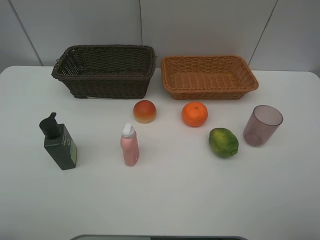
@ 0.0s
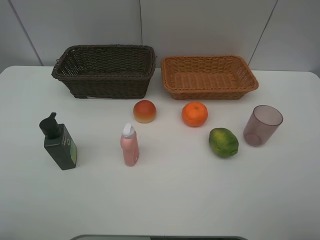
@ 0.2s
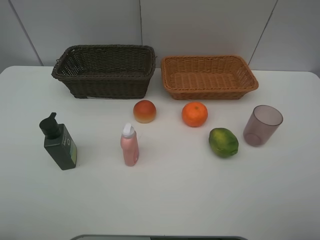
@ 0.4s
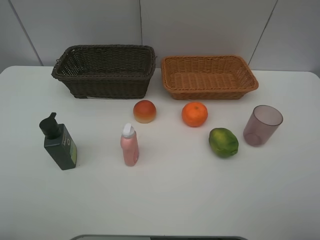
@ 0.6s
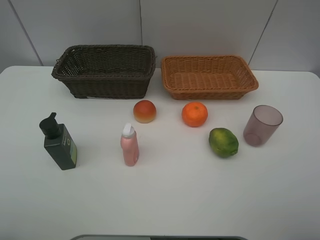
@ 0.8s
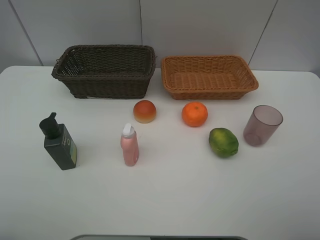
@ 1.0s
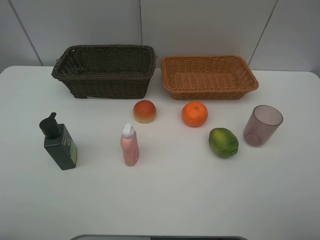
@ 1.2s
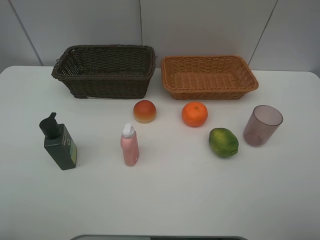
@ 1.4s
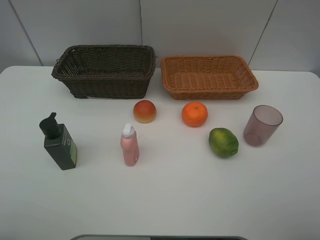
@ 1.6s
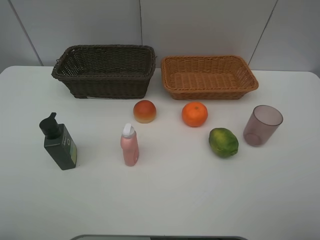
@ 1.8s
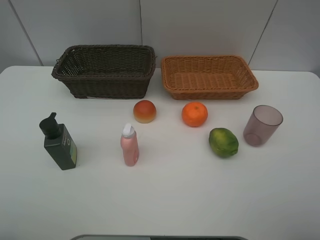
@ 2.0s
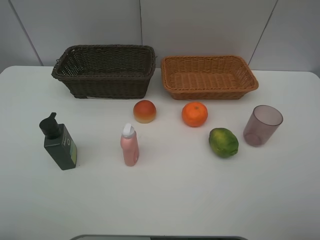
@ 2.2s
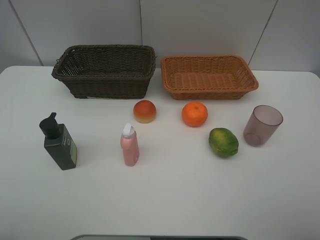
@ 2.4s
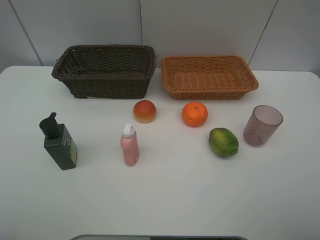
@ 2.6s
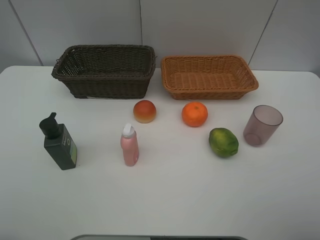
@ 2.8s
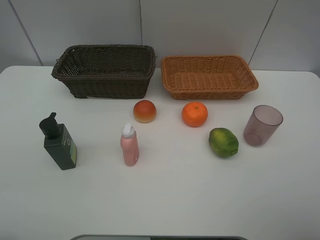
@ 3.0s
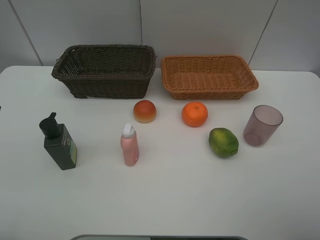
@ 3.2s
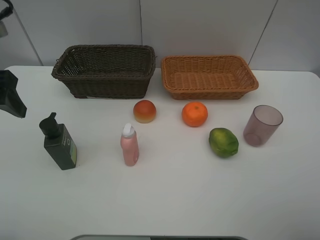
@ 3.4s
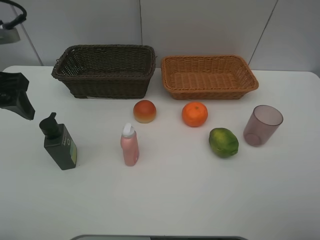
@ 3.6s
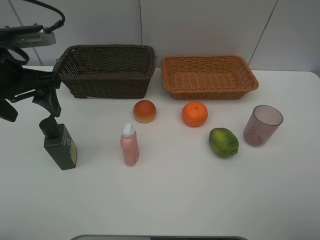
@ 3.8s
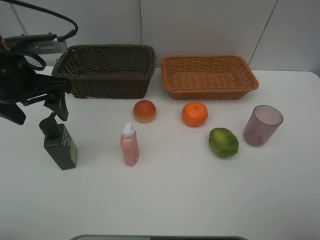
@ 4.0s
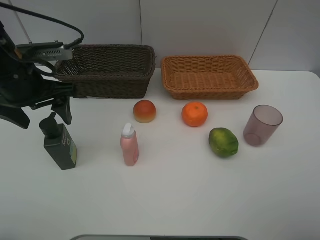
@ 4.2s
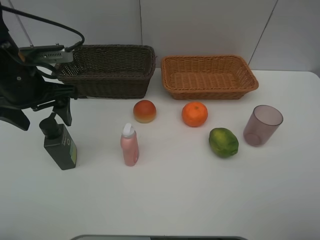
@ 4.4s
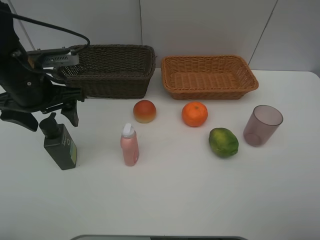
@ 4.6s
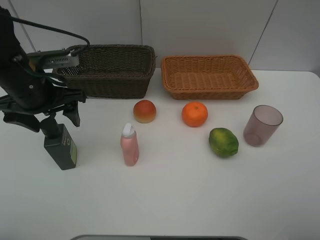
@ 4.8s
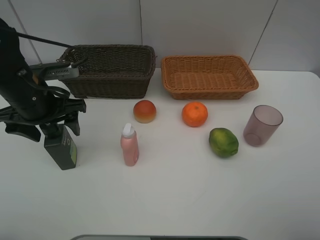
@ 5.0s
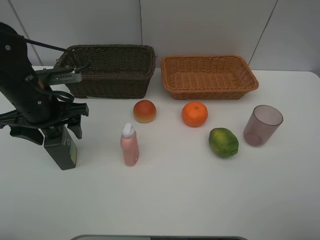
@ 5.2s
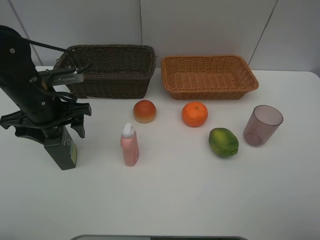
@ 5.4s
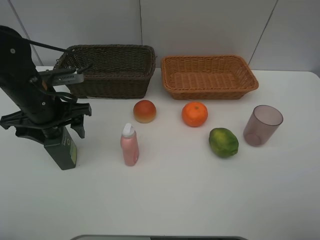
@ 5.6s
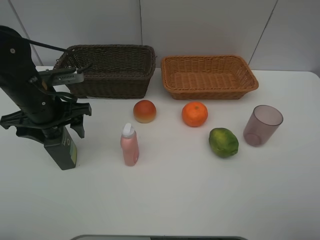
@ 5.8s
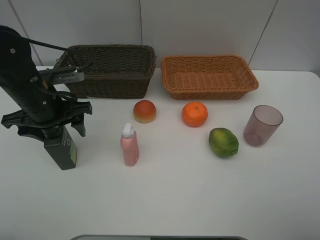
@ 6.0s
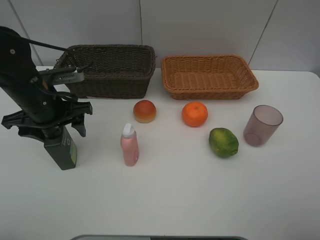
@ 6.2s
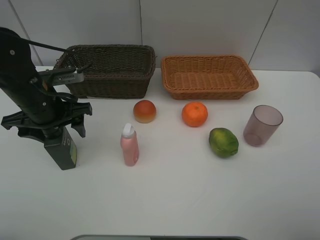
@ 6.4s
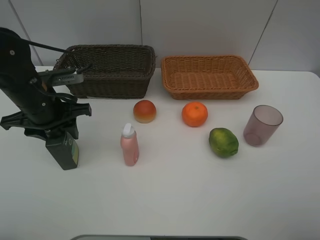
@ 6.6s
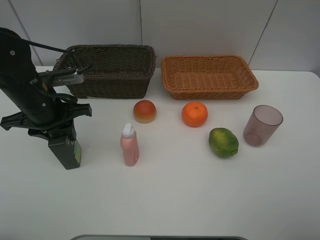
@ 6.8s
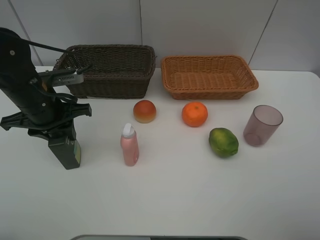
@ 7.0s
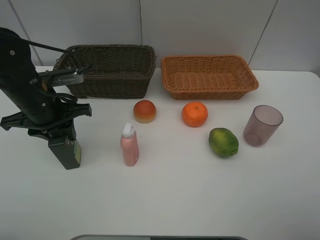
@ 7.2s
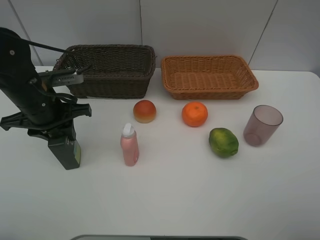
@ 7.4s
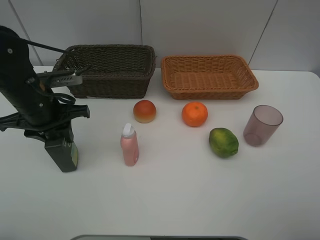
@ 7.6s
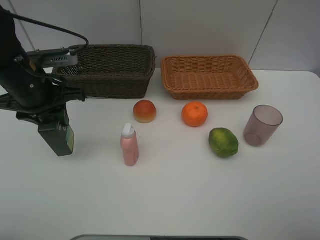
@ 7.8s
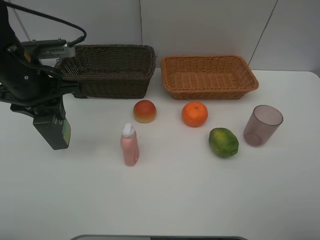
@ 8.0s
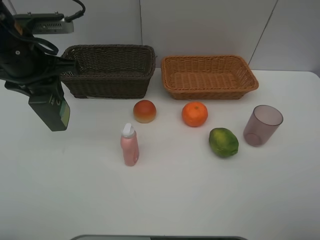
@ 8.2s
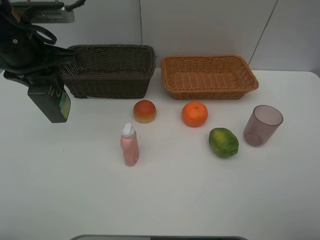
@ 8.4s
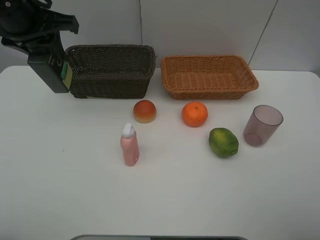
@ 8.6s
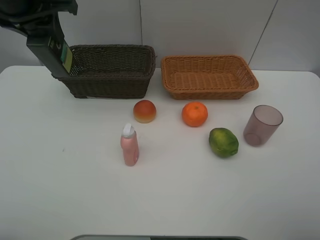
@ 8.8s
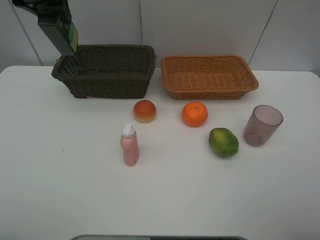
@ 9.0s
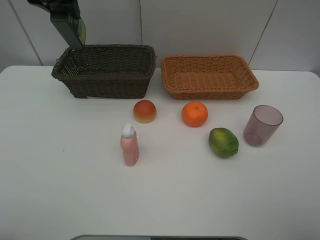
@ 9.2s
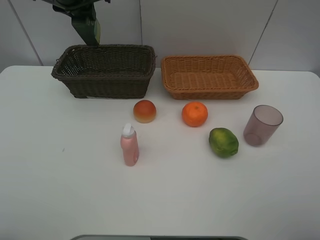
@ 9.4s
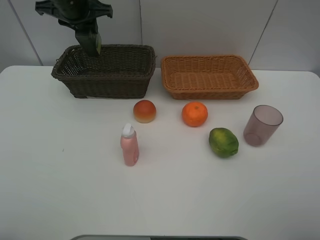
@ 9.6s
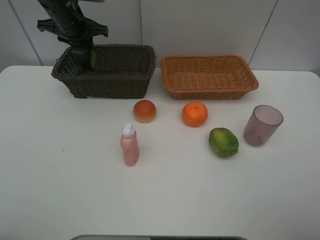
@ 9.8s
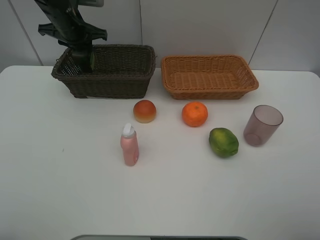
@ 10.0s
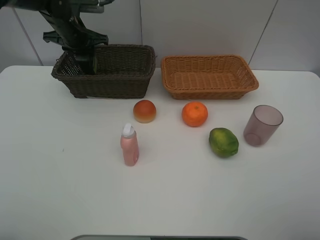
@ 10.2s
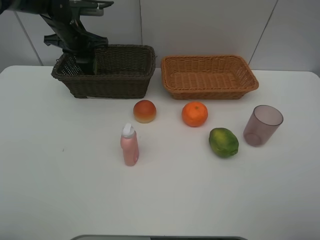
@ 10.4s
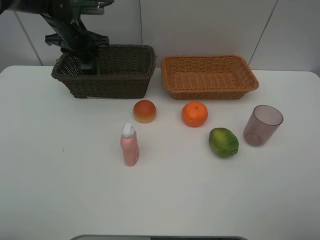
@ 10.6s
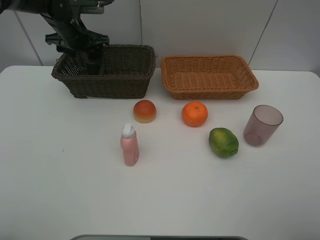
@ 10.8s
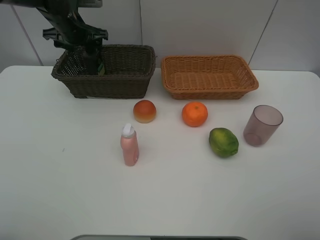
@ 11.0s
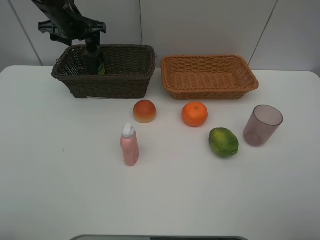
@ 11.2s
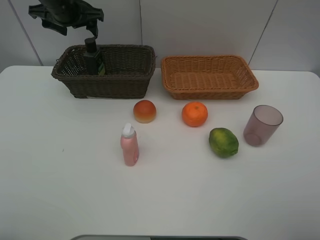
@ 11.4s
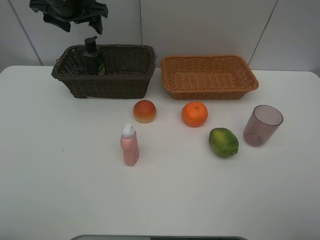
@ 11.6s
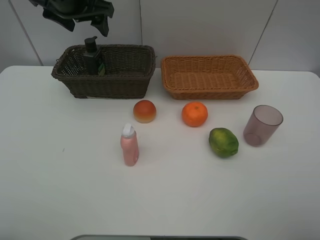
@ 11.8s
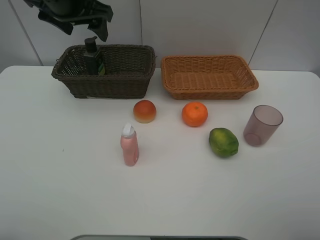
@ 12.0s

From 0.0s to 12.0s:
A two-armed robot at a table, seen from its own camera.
Task of the whole recording: place multiple objects separately in different baskets.
From 0.0s to 1.6s: Both grippers stay put.
From 3.0s to 4.4s: The left gripper is displaced forward, downward and to the right by some 15 cm.
From 4.4s to 6.0s: The left gripper is displaced downward by approximately 5 cm.
From 6.0s to 7.6s: The left gripper closes up.
From 7.6s to 9.0s: The left gripper goes approximately 20 cm upward and forward.
From 9.0s to 10.4s: The left gripper travels downward and forward by about 20 cm.
From 10.4s to 12.0s: The left gripper is displaced upward, backward and to the right by approximately 20 cm, and opens.

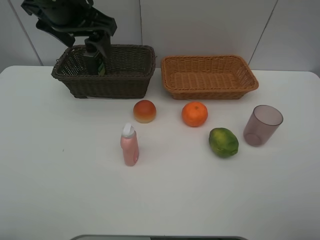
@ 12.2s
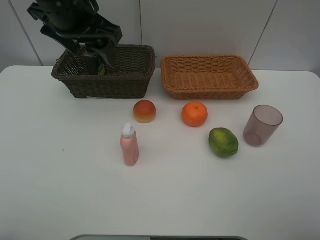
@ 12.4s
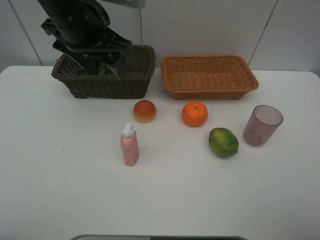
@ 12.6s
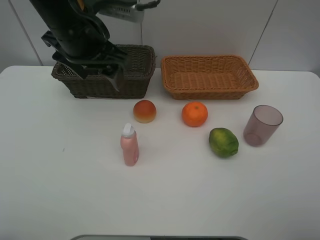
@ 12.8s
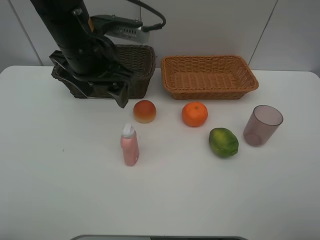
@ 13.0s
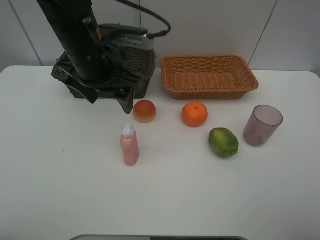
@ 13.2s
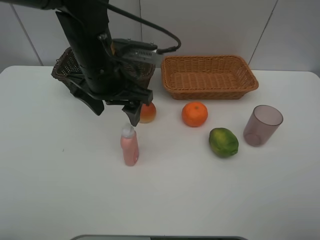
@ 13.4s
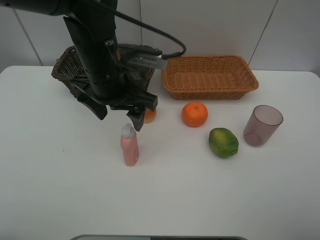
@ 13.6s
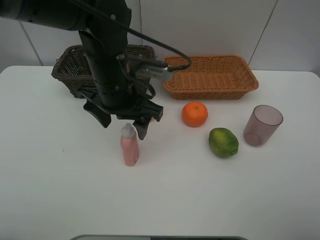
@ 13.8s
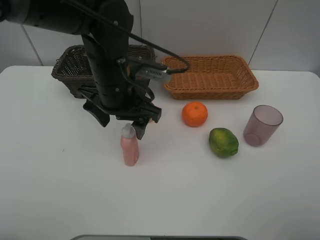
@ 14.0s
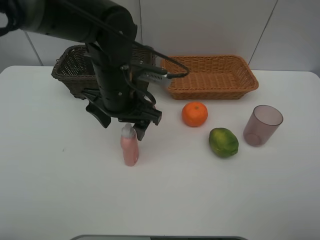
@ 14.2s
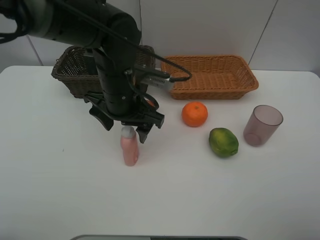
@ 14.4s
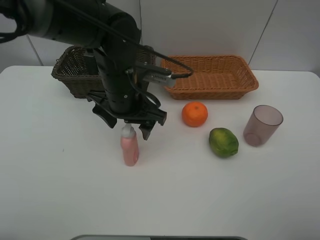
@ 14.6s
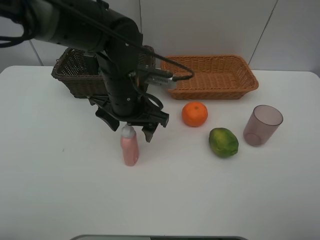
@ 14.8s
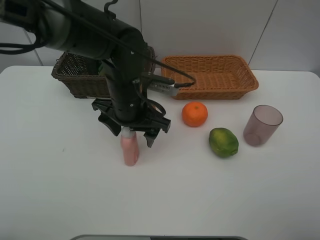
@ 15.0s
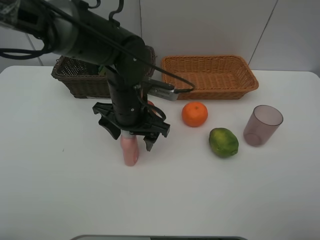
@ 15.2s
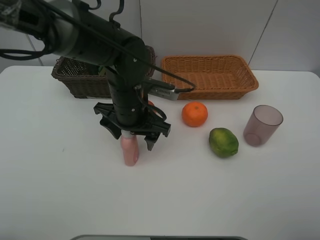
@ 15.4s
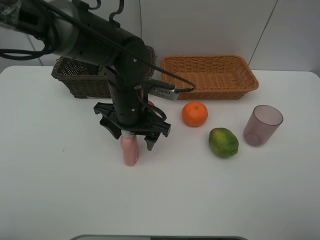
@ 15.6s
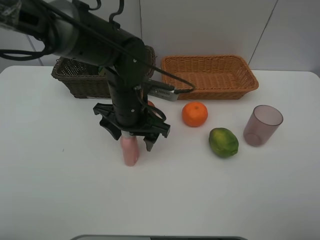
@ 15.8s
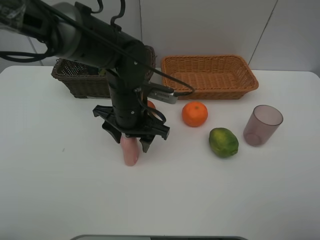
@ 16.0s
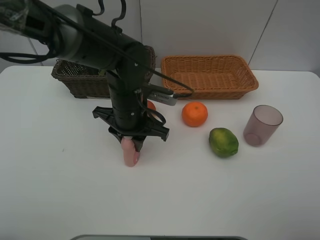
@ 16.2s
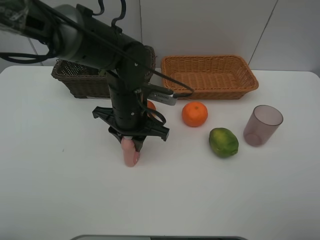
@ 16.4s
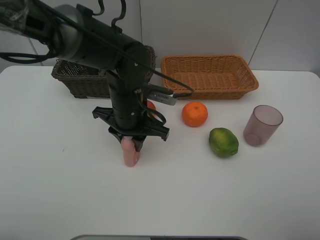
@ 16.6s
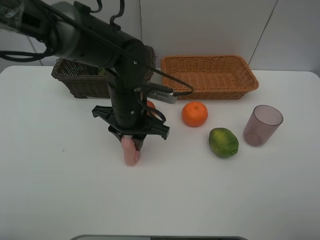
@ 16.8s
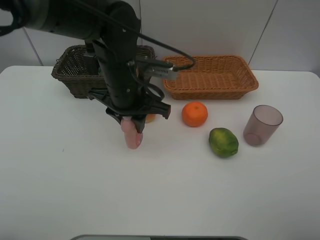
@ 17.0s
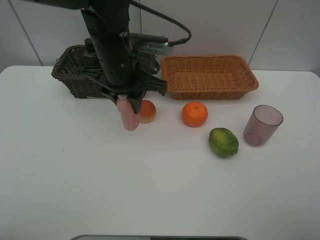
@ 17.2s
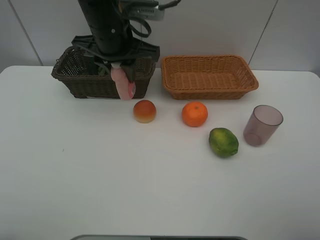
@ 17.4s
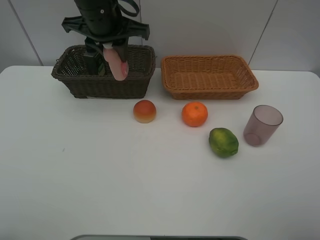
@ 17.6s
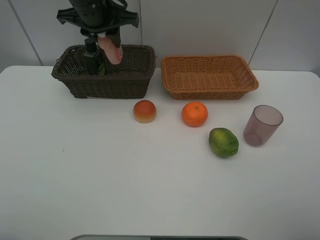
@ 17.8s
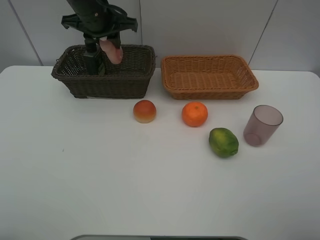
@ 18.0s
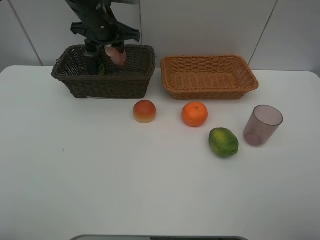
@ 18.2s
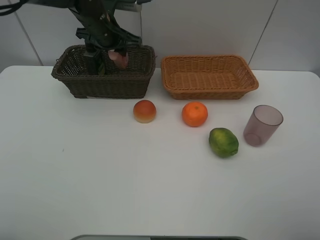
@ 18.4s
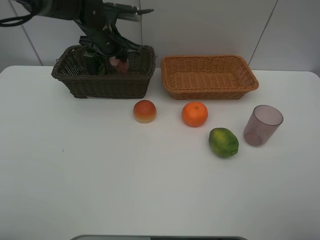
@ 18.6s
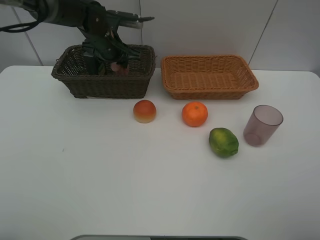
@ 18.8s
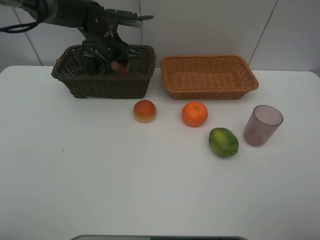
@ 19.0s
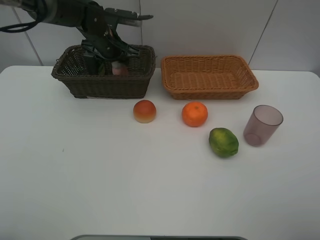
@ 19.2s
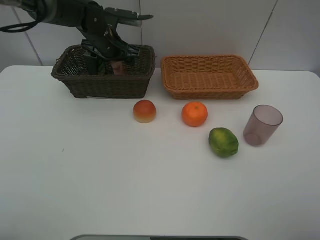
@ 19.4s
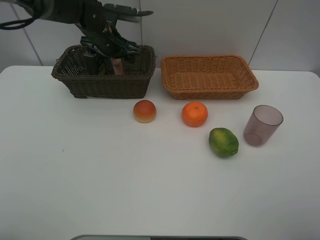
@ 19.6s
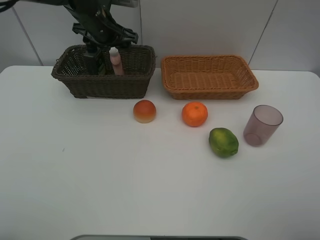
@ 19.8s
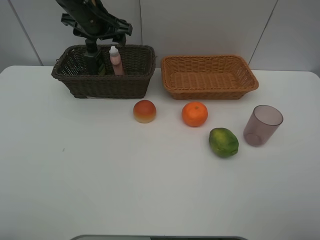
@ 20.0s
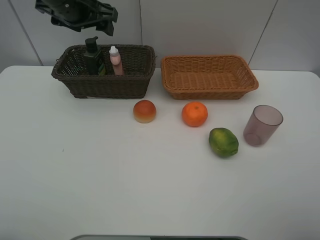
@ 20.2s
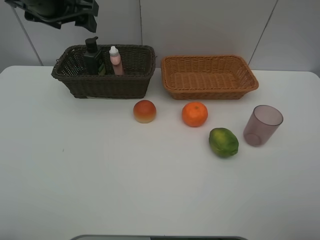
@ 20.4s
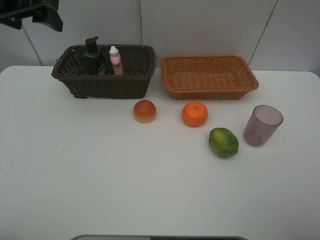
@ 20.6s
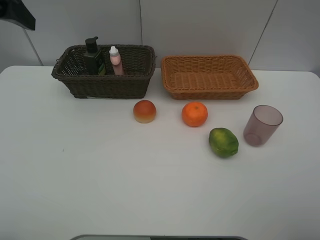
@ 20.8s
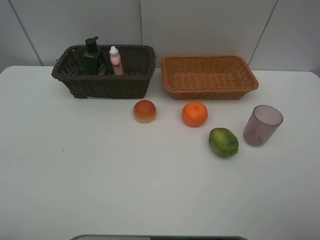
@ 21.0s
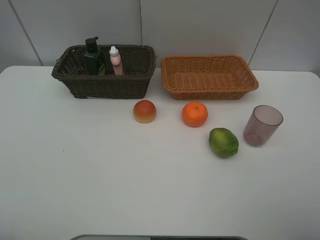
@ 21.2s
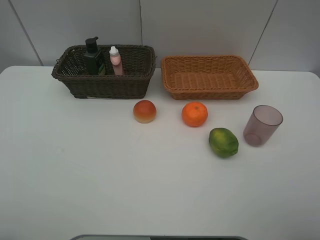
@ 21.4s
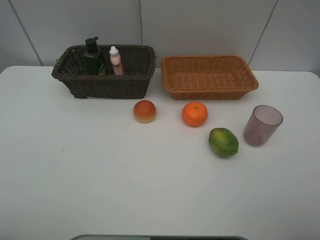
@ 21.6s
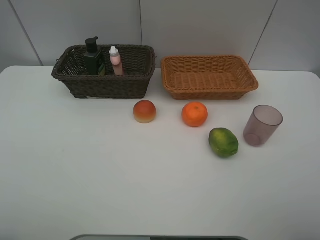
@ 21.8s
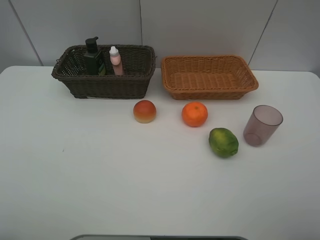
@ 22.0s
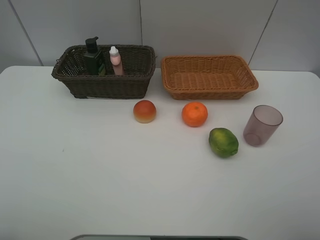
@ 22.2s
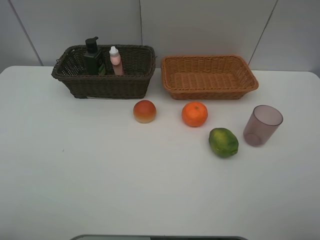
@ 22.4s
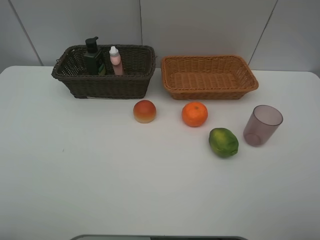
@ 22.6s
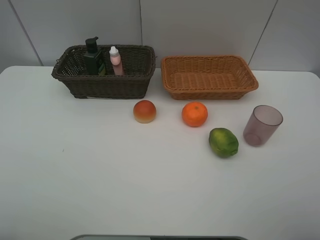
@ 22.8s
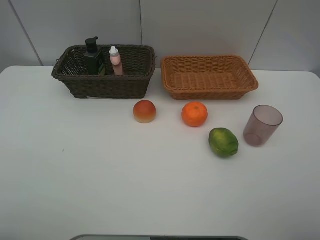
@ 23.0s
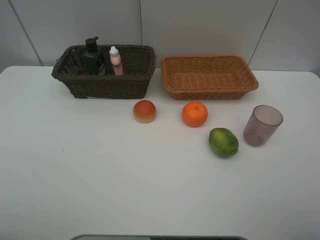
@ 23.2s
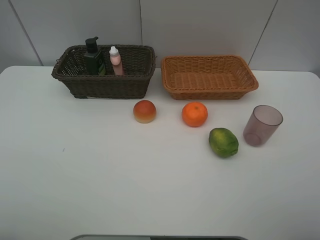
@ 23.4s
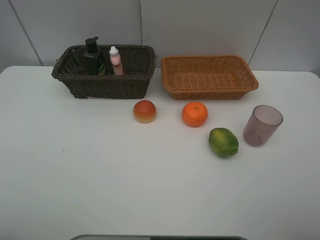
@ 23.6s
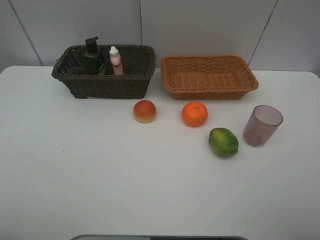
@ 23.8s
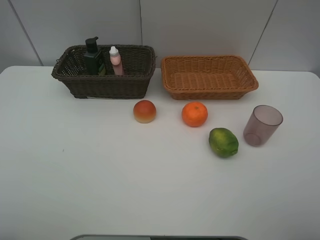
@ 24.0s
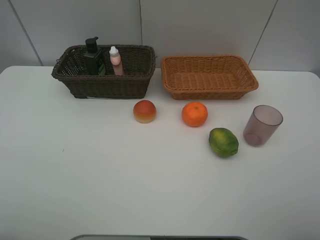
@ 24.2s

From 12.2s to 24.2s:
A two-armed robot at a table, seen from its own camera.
Task of the whole recording: place multiple objects separately in different baskets.
From 12.2s to 13.8s: The left gripper travels downward, to the right and backward by about 15 cm.
From 13.8s to 15.2s: The left gripper goes approximately 5 cm downward.
From 15.2s to 16.6s: The left gripper closes its fingers.
From 16.6s to 18.2s: The left gripper shifts roughly 20 cm forward, upward and to the left.
From 18.2s to 19.8s: The left gripper opens its fingers.
From 19.8s to 21.2s: The left gripper shifts some 40 cm backward, upward and to the left.
From 22.6s to 24.2s: The two grippers keep their place.
